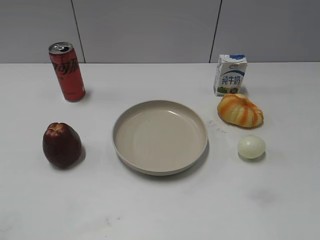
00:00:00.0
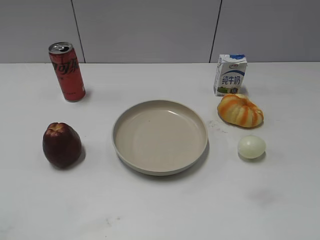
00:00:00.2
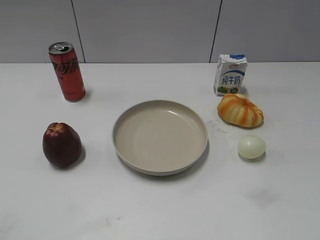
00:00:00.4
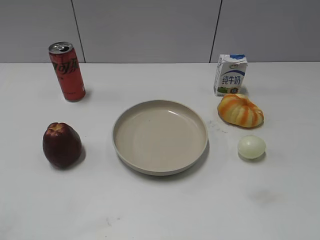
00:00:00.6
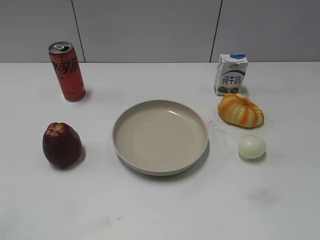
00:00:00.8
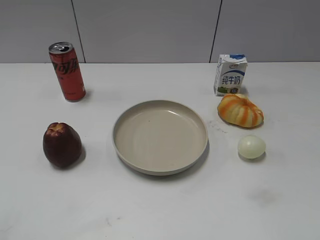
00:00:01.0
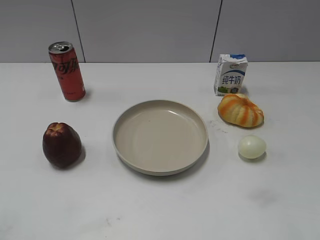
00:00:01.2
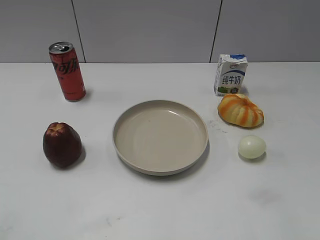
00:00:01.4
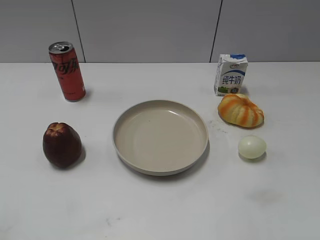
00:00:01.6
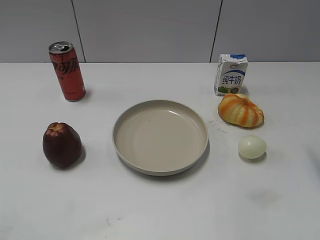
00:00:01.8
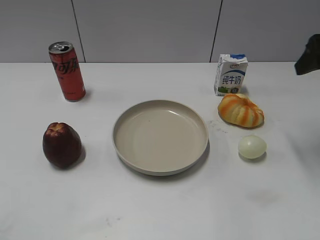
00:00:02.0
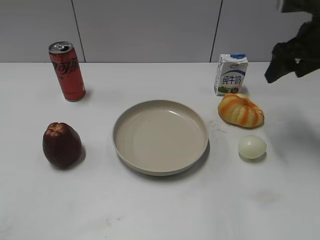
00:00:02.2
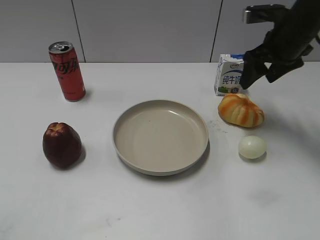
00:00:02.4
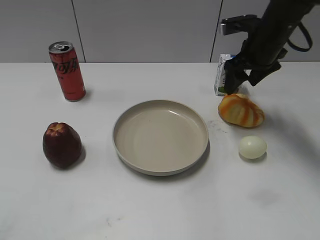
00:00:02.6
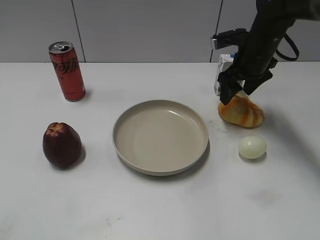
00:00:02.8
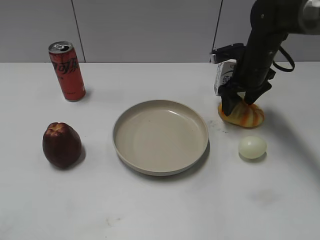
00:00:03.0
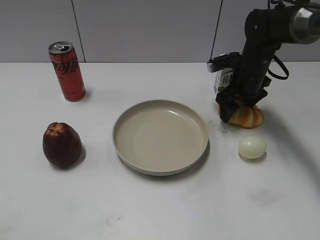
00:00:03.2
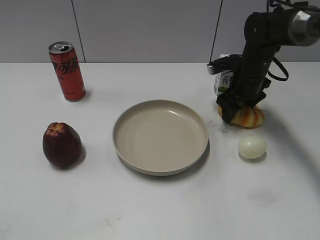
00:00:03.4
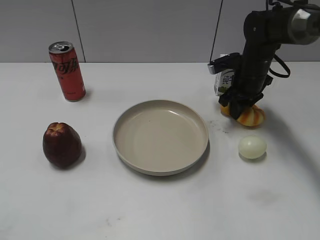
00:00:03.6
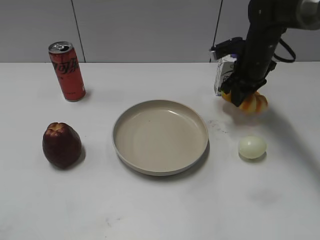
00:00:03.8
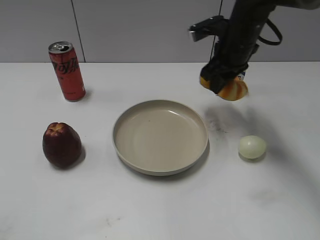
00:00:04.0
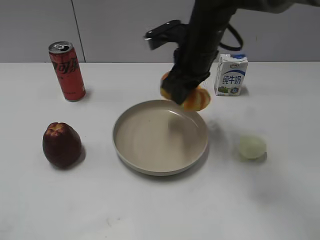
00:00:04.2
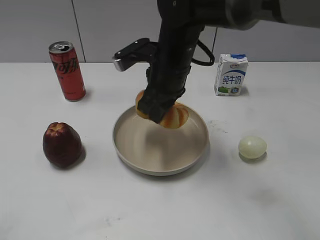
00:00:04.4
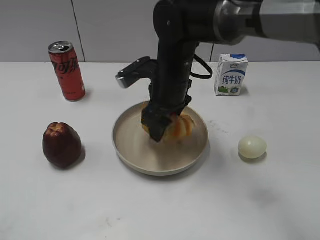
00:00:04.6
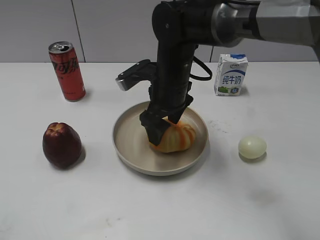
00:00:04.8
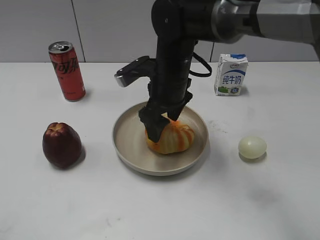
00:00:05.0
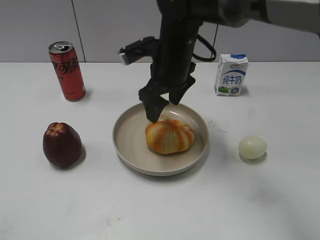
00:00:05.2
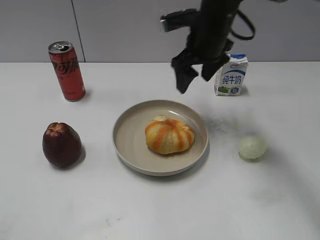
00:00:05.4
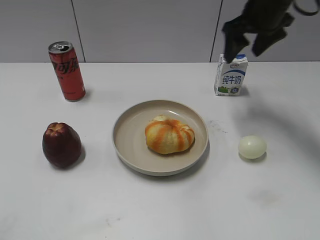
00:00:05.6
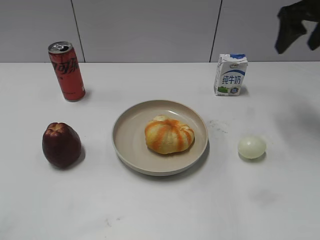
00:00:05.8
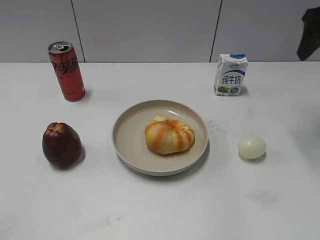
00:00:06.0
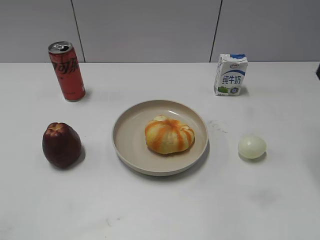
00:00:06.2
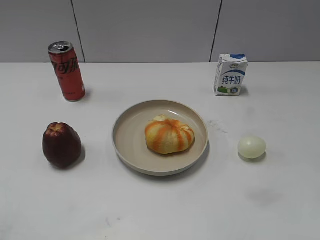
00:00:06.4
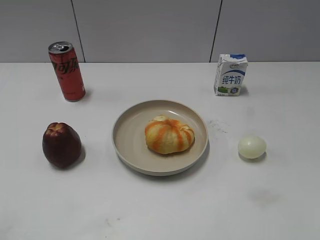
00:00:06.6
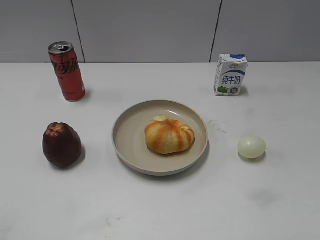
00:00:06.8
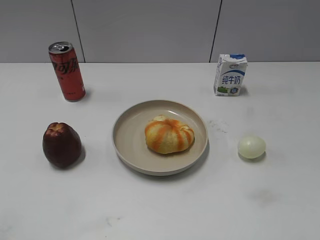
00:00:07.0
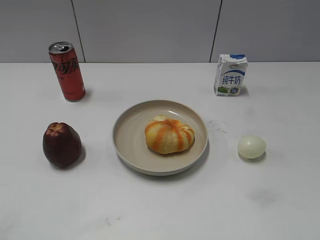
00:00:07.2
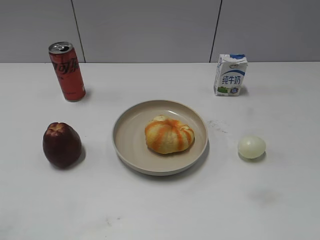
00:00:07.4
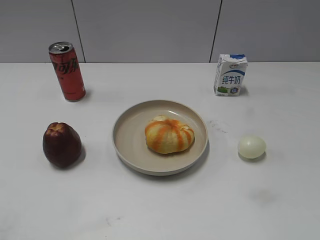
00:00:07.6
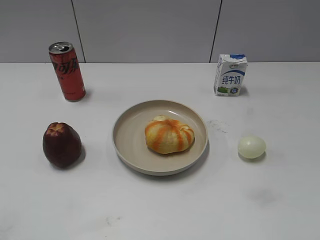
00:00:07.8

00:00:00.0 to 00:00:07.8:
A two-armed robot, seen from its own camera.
Step, 00:00:00.8 to 00:00:03.6: Grasp the round bread with right gripper.
Step, 00:00:03.8 to 00:00:05.2: Place the round bread on the plate with right gripper.
00:00:01.6 to 00:00:03.2: The right gripper travels forward, downward and to the left by approximately 35 cm.
00:00:03.2 to 00:00:04.6: The right gripper travels to the left and backward by roughly 20 cm, and closes and opens again.
00:00:04.6 to 00:00:06.2: The right gripper shifts about 30 cm to the right and upward.

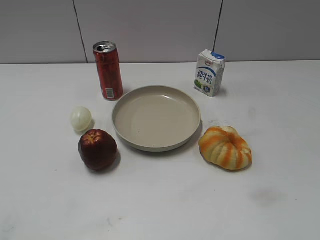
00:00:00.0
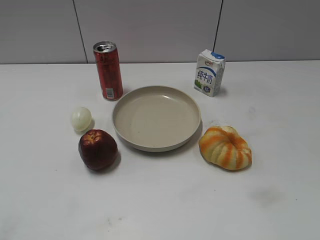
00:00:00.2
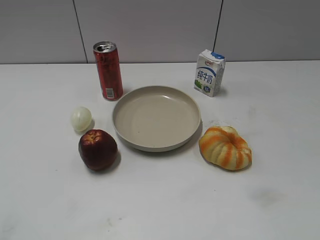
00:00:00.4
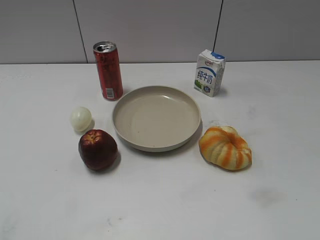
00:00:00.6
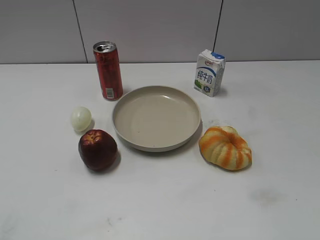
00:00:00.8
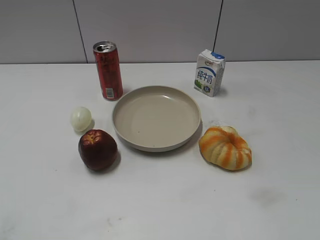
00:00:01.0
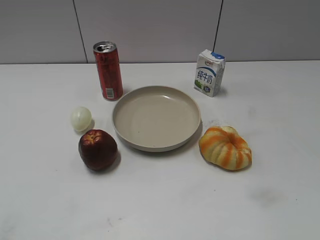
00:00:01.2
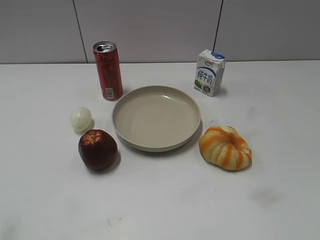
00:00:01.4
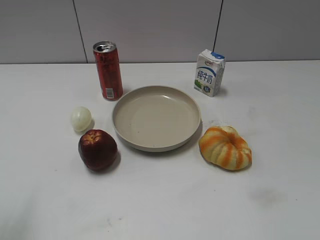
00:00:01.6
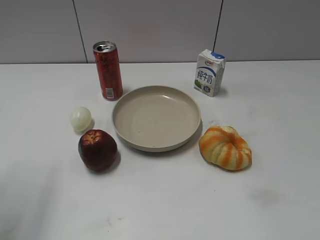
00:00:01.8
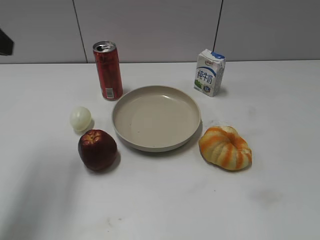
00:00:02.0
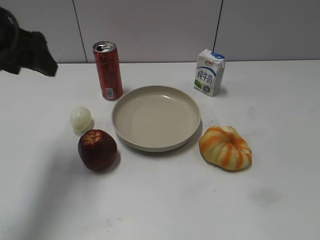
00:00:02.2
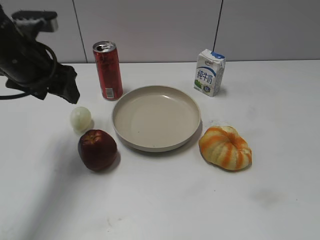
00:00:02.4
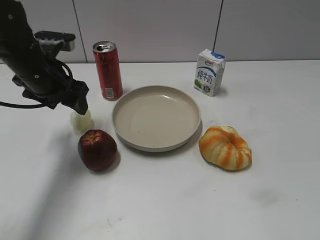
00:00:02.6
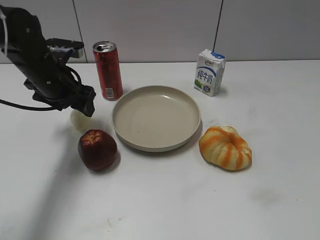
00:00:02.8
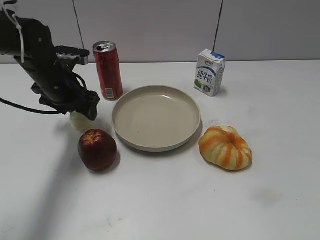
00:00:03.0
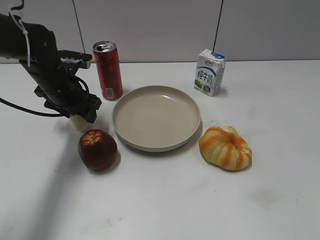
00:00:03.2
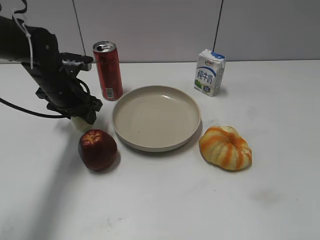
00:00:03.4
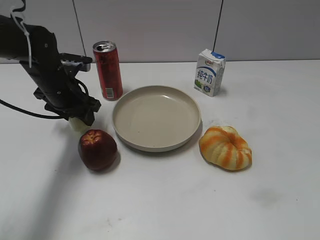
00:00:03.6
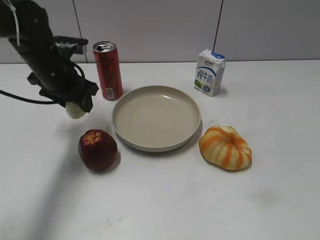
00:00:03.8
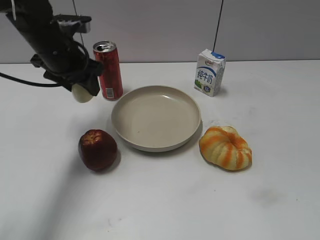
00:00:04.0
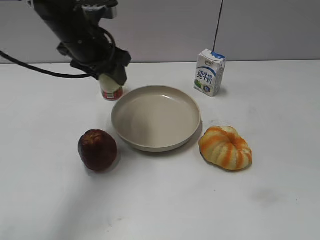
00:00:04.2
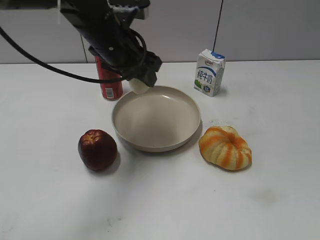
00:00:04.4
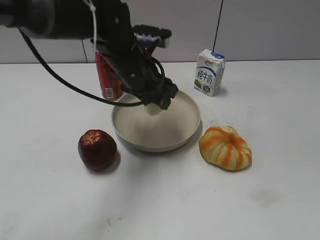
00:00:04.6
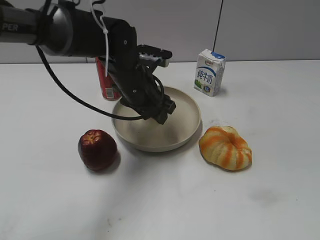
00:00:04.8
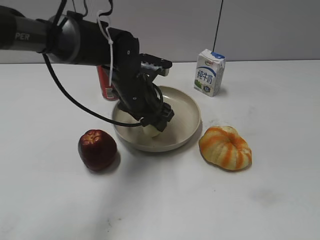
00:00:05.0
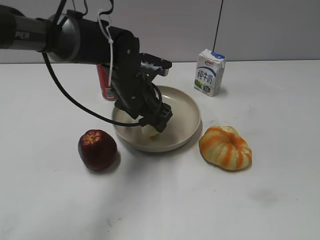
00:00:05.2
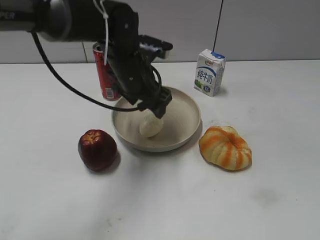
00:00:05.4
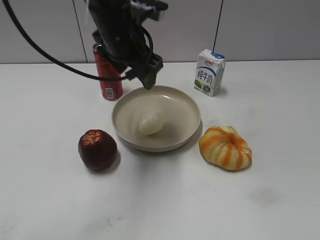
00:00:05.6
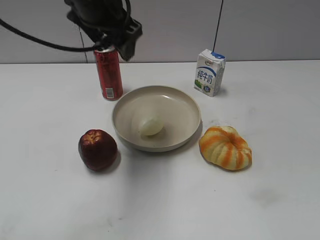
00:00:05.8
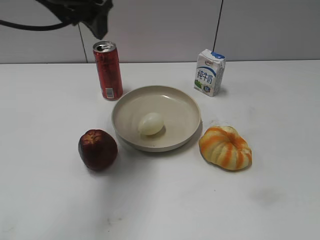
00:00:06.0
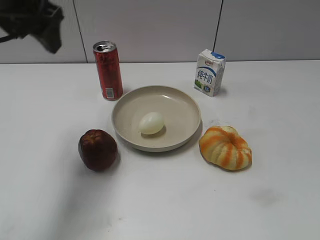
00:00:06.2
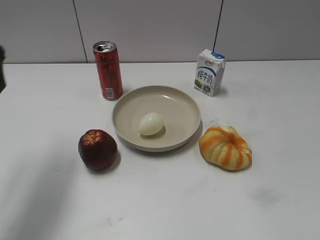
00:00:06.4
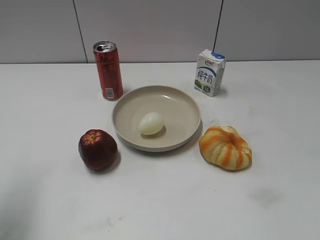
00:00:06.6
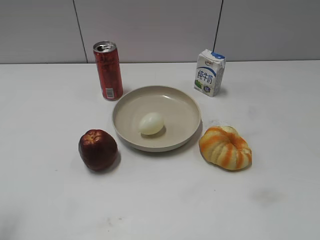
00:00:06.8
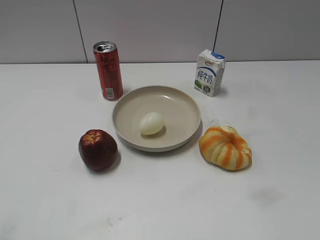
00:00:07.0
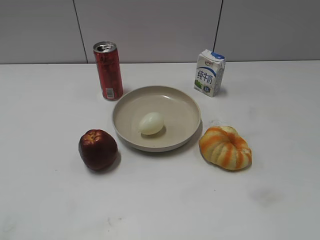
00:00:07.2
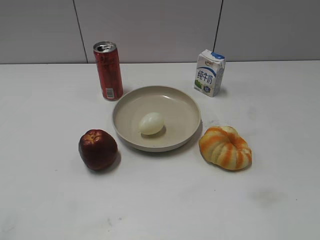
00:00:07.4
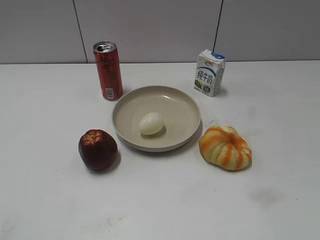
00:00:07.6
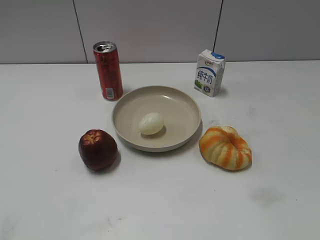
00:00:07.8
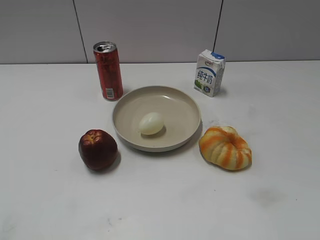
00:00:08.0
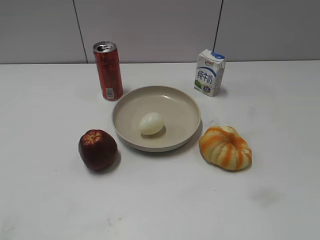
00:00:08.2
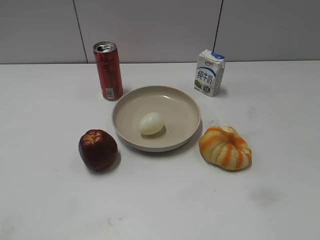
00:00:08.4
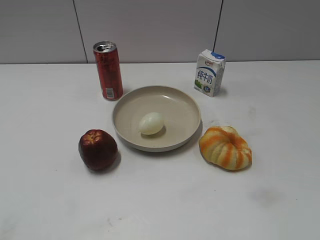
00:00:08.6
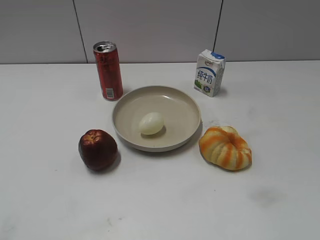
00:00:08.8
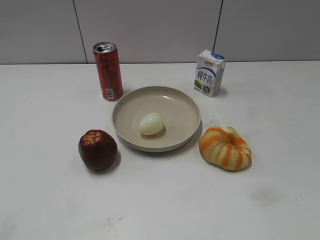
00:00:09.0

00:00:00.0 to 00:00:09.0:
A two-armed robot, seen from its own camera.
Step, 00:00:01.2 to 00:00:03.6: Grasp the egg with left gripper.
Step, 00:00:03.8 to 00:00:05.2: Place the egg on the plate with left gripper.
00:00:01.6 to 00:00:03.0: The left gripper travels forward, downward and to the right by roughly 35 cm.
00:00:03.0 to 00:00:04.4: The left gripper travels to the right and upward by some 15 cm, and closes its fingers.
00:00:04.4 to 00:00:06.0: The left gripper goes about 10 cm upward and to the left, and opens up.
00:00:06.0 to 00:00:07.6: The left gripper moves backward and to the left, approximately 40 cm.

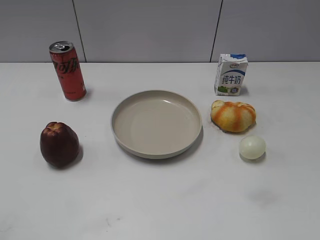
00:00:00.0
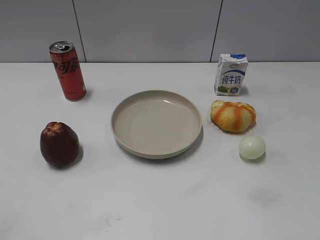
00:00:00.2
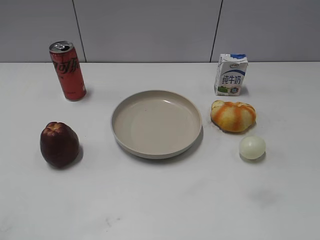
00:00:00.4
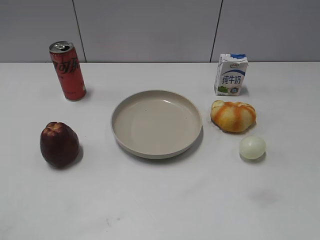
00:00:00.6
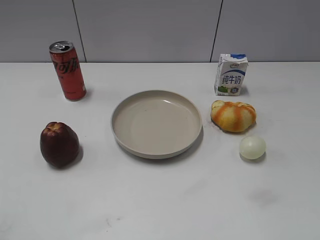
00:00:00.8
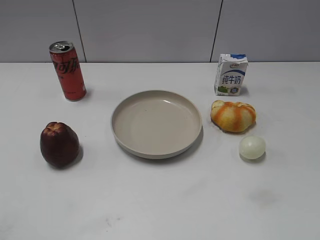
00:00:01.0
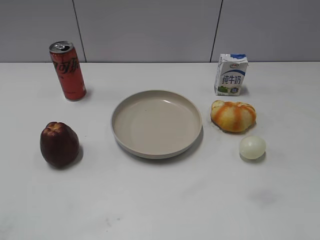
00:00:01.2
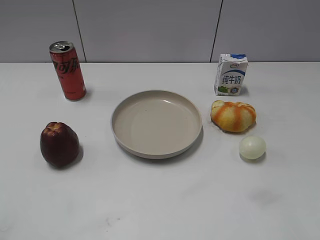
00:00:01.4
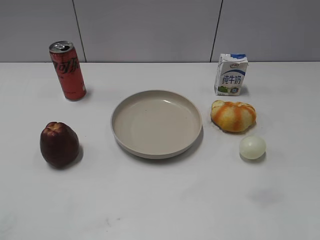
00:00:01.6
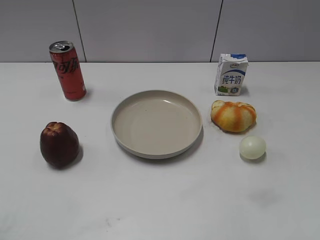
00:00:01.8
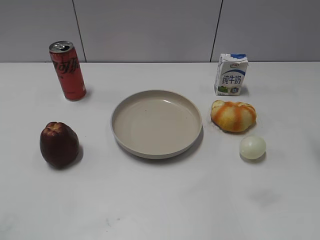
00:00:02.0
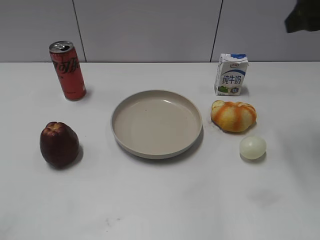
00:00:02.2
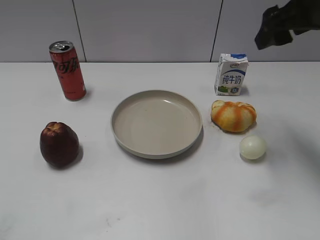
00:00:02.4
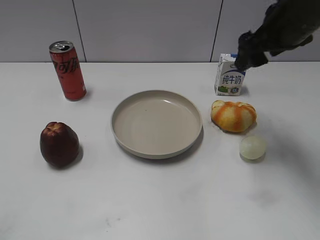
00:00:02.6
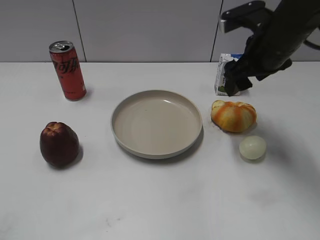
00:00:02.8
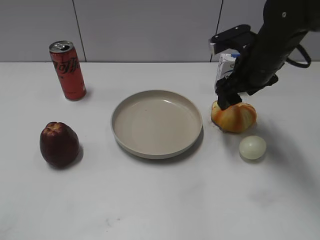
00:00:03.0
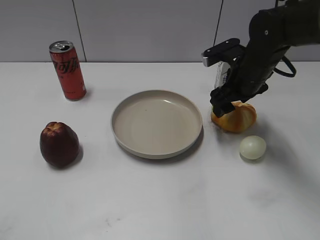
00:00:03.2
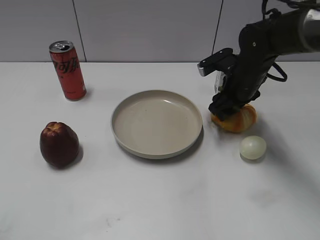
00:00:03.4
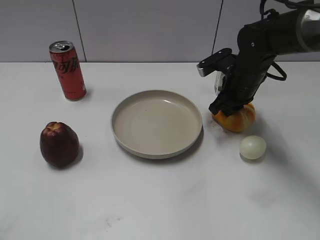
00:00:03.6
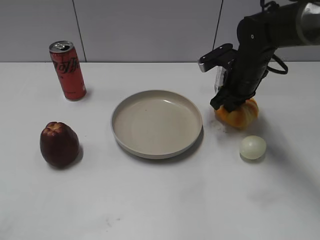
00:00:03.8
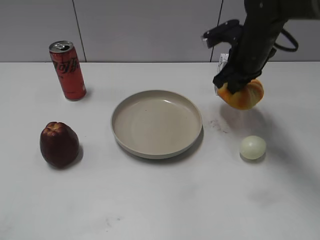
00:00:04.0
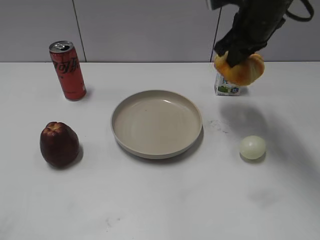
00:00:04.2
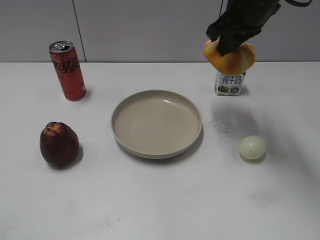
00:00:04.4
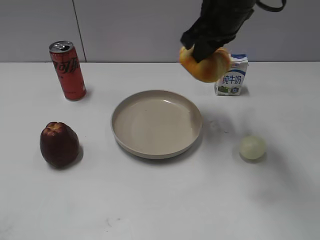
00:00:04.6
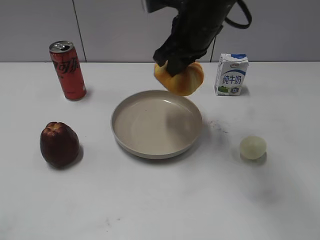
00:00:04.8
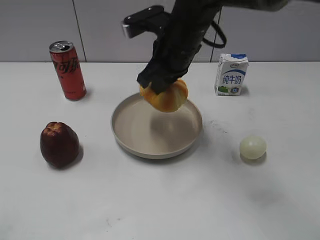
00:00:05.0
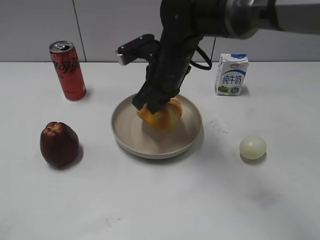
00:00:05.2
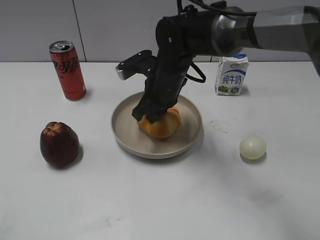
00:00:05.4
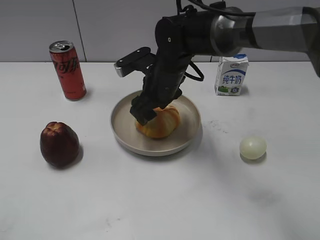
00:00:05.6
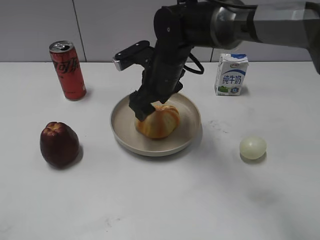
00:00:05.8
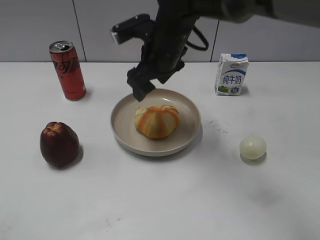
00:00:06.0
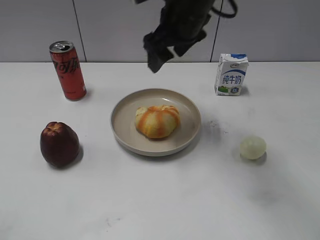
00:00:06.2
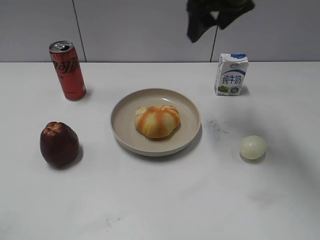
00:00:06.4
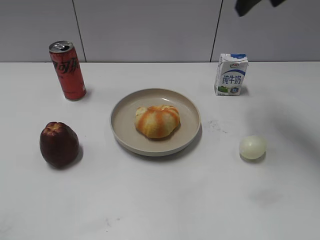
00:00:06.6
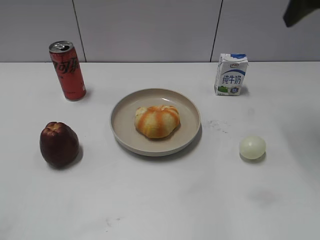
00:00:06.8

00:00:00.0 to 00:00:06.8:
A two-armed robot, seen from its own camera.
Step, 00:00:01.0 to 00:00:03.6: Grasp the round bread with right gripper.
Step, 00:00:03.8 to 00:00:05.8: Place the round bread on the plate with right gripper.
00:00:01.4 to 00:00:02.8: The right gripper shifts about 30 cm forward and to the left.
00:00:02.8 to 00:00:04.0: The right gripper reaches some 10 cm downward, then returns, and closes.
00:00:04.0 to 00:00:05.4: The right gripper travels to the left by some 15 cm.
00:00:05.4 to 00:00:06.8: The right gripper moves to the right and upward, roughly 30 cm, and opens up.
